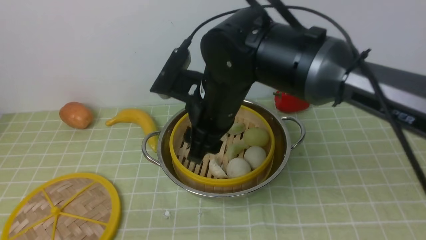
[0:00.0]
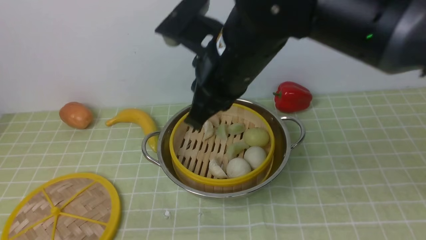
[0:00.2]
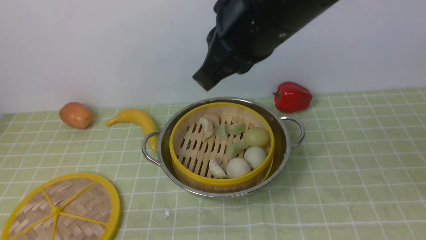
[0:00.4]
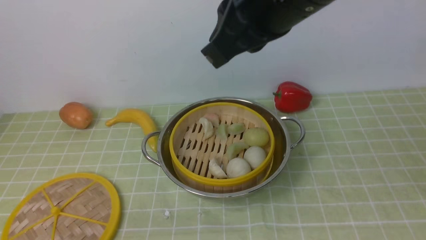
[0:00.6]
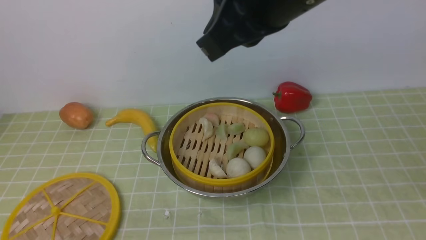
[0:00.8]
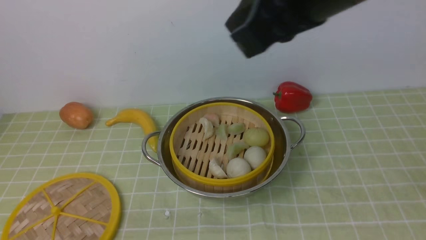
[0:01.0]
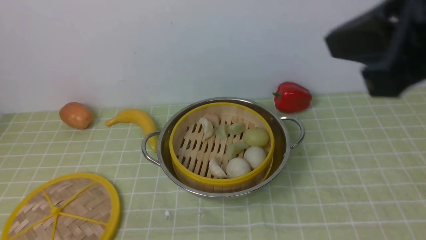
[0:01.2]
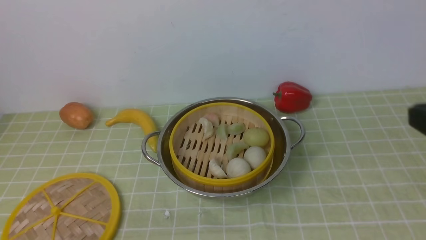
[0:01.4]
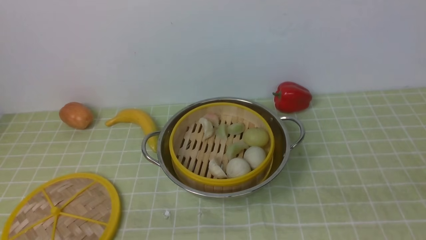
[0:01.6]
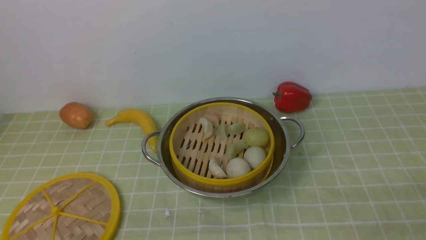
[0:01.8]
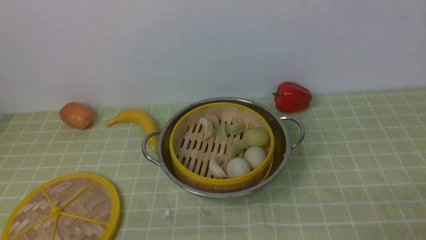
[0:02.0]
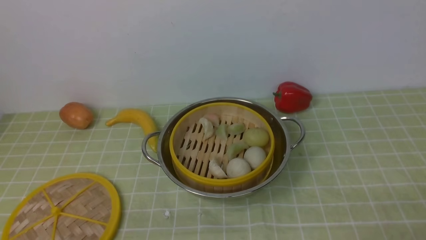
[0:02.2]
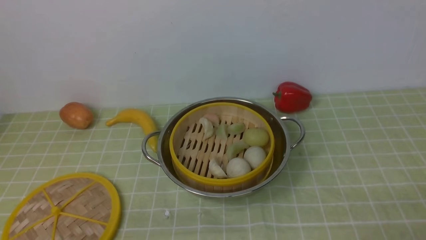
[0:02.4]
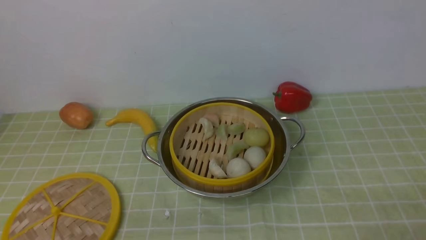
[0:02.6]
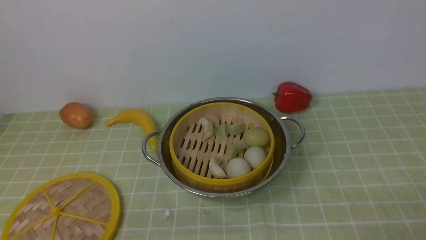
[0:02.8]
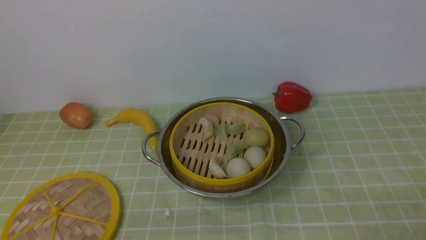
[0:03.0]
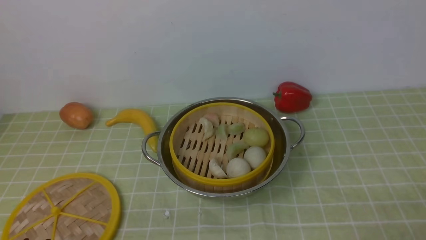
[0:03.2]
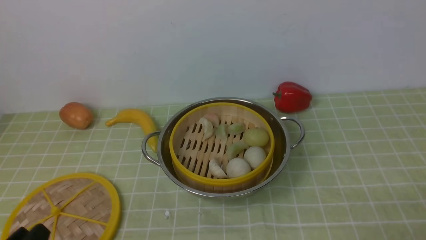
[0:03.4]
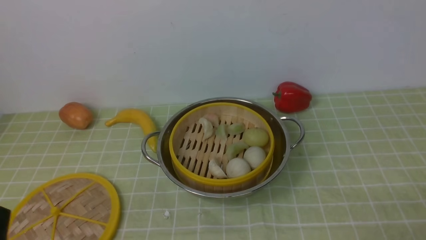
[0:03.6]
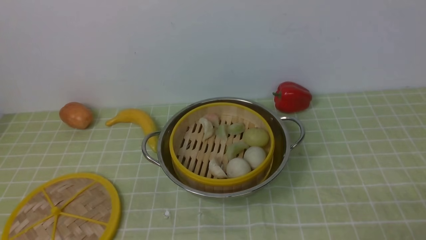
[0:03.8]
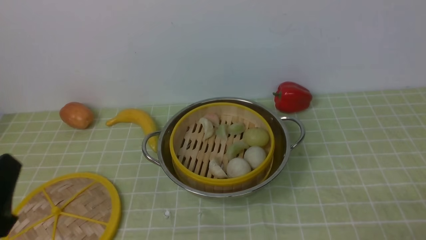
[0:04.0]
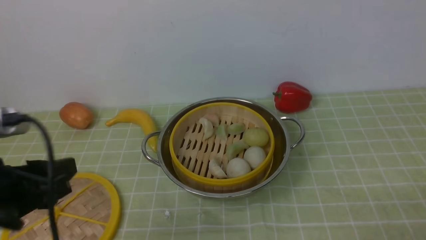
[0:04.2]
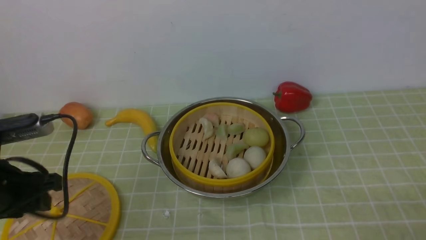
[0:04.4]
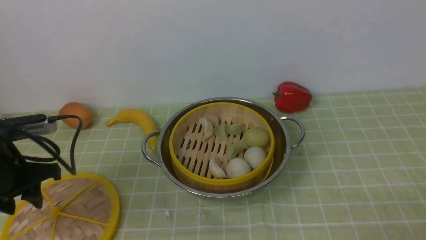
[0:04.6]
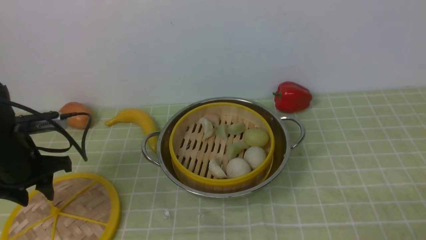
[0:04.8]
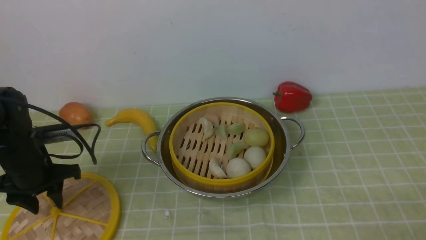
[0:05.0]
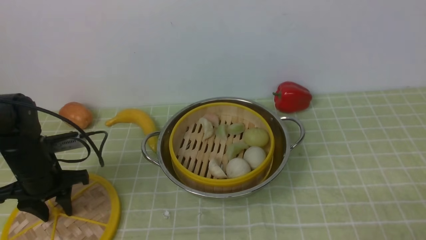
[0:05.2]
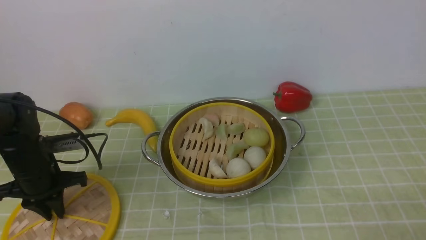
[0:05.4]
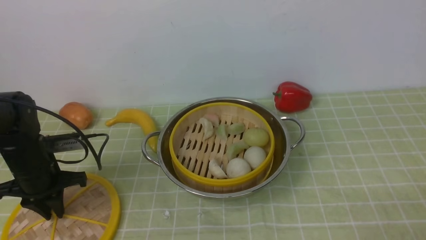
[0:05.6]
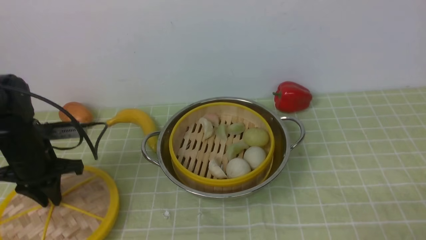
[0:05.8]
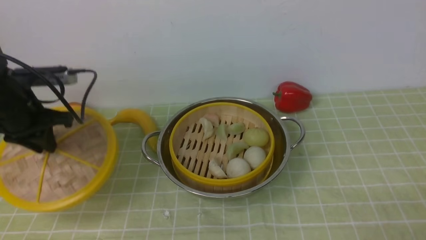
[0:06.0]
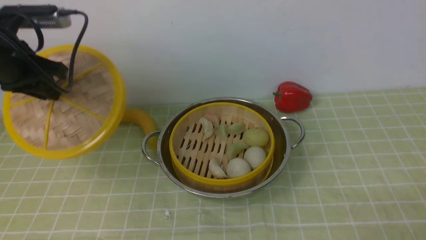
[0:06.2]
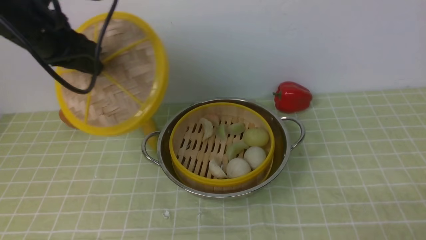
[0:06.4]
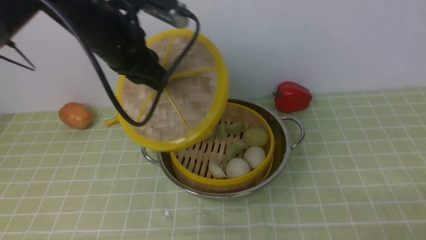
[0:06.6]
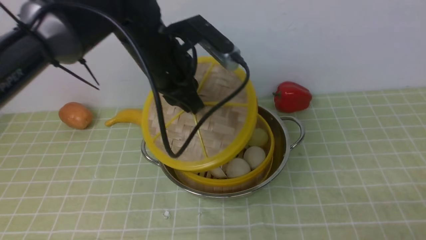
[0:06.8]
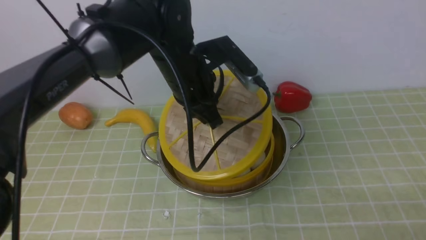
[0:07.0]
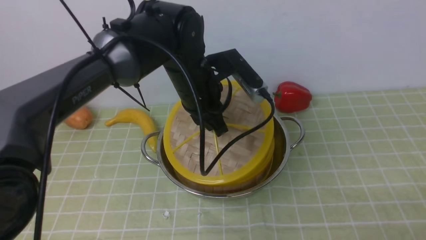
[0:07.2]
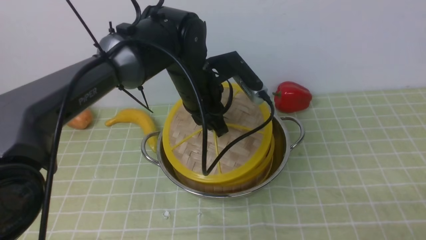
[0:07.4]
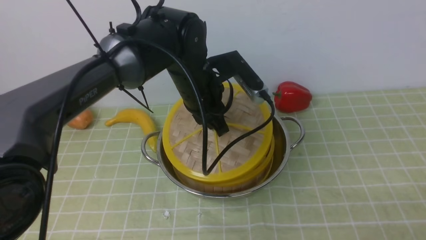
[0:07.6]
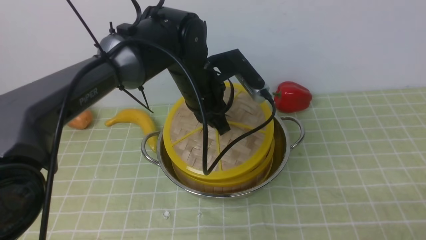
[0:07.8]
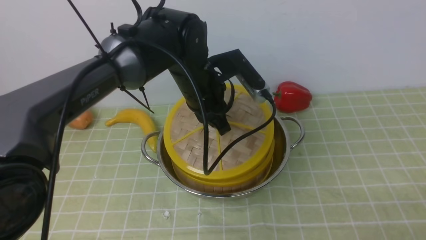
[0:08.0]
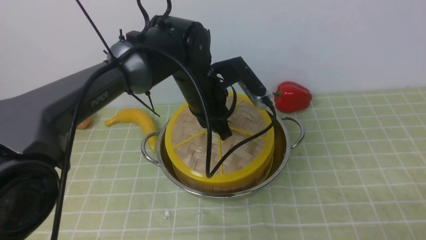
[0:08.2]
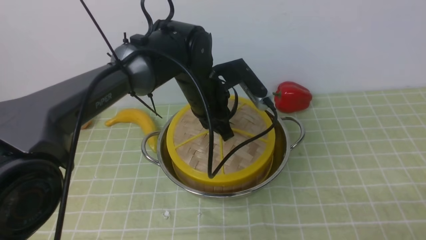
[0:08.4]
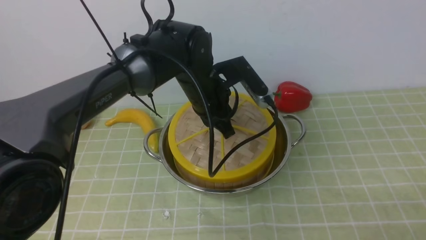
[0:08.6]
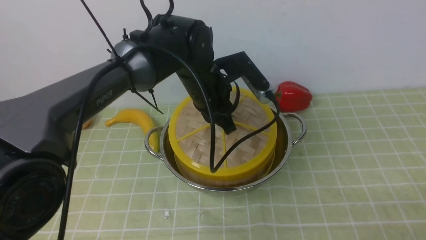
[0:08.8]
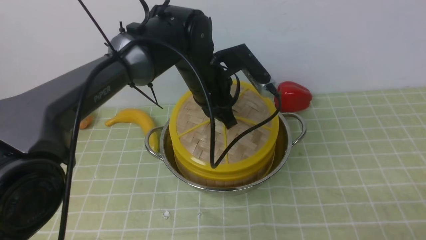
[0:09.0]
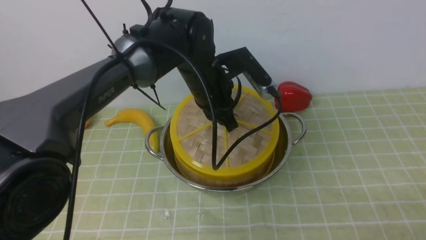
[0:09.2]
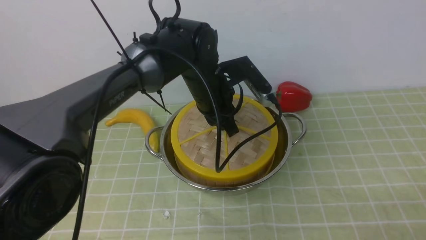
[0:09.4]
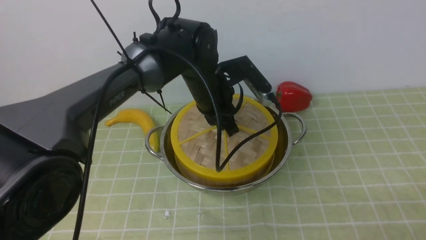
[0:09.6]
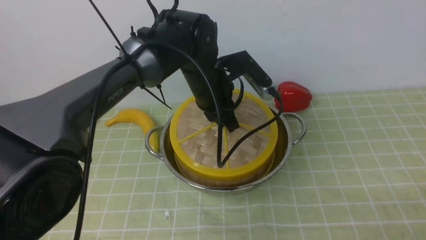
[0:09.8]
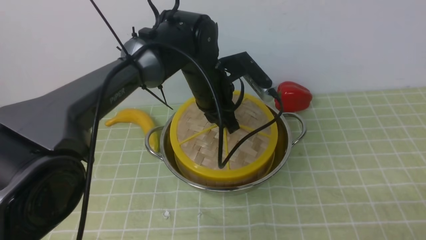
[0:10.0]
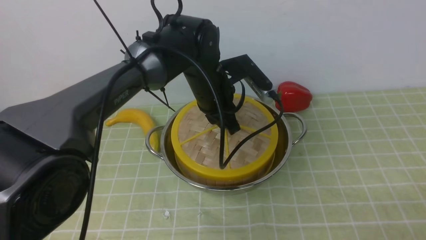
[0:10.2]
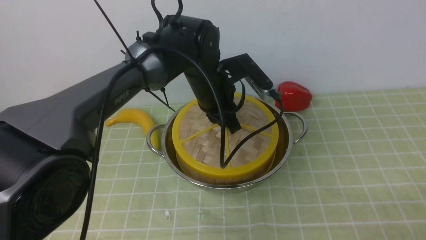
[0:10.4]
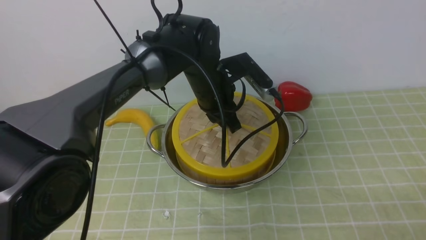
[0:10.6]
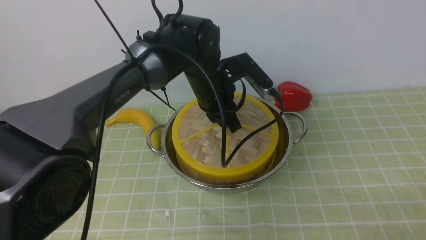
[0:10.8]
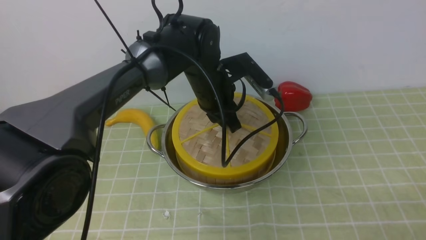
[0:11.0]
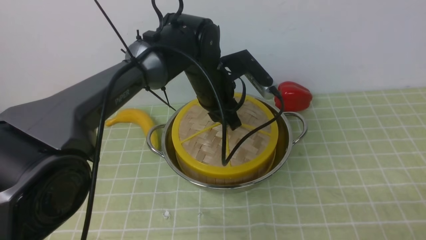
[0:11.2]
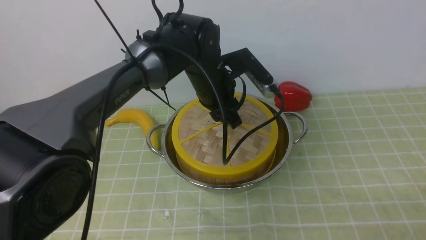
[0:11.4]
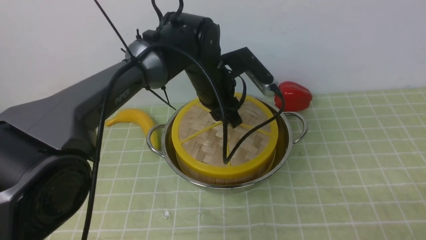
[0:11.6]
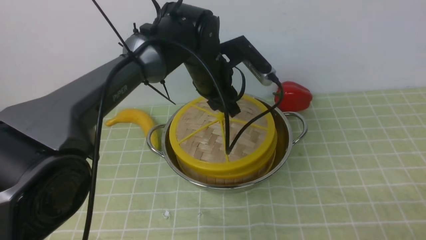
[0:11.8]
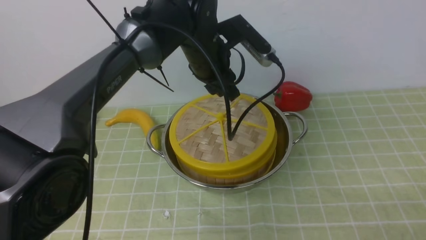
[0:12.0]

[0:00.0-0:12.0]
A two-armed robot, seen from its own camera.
Task of the whole recording: place the steamer in the pot on the green tablecloth, and put the lid on the steamer.
Step, 0:00.0 to 0:06.2: use the left arm to lift the lid of the steamer.
0:00.0 to 0:01.6: The right gripper goes approximately 35 cm to the right and backward, and closes.
0:03.0 to 0:04.4: The left gripper is displaced forward and upward by some 20 cm.
0:04.4 to 0:06.0: The left gripper heads forward, covering roughly 15 cm, and closes up.
0:06.0 to 0:07.6: The left gripper travels to the right by some 25 cm.
0:07.6 to 0:10.4: The grippers stay close to where they were, moving slightly.
0:10.4 to 0:12.0: The left gripper opens its fingers.

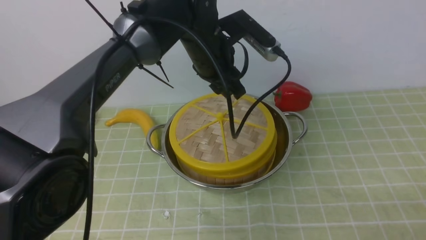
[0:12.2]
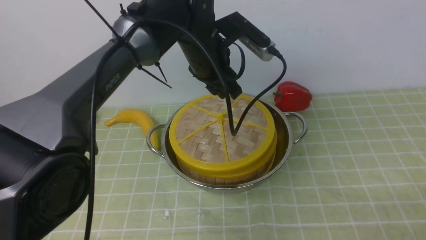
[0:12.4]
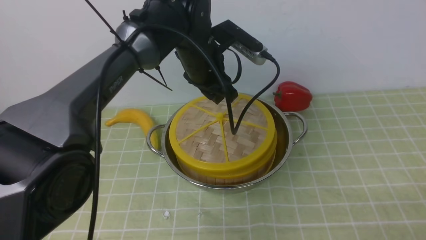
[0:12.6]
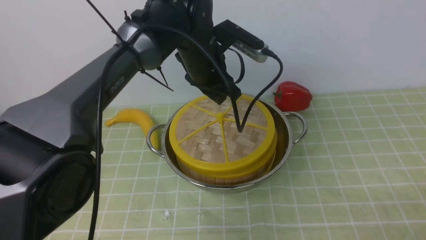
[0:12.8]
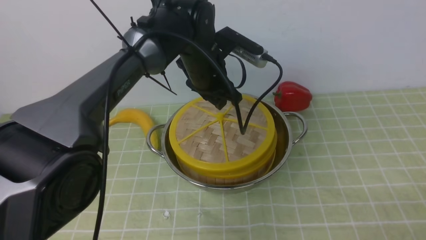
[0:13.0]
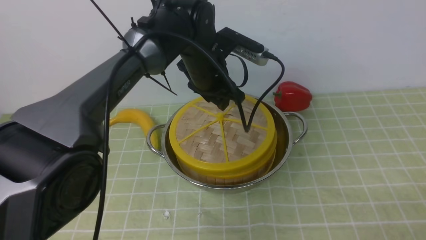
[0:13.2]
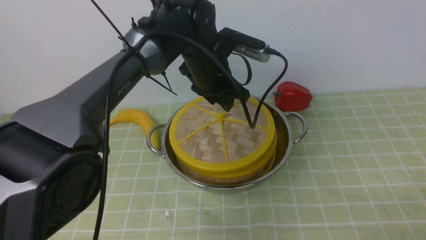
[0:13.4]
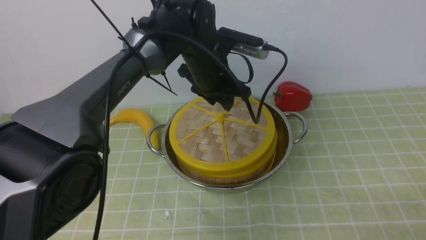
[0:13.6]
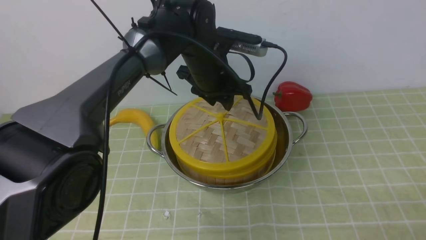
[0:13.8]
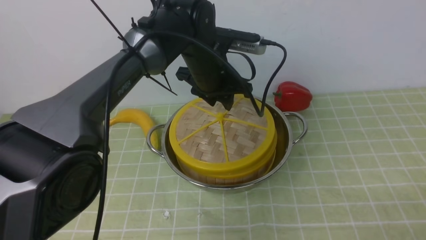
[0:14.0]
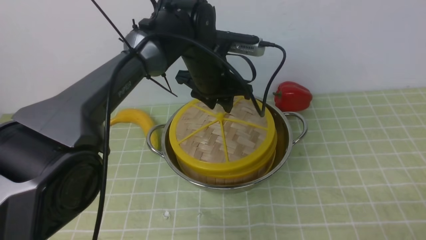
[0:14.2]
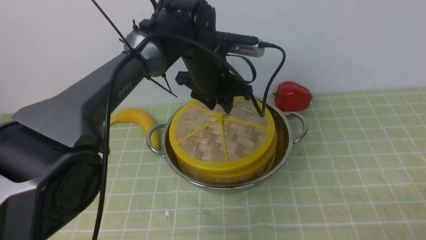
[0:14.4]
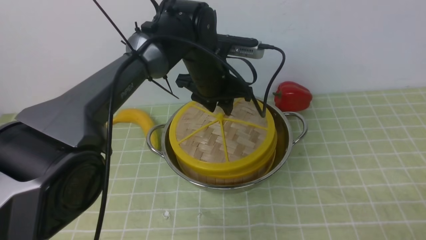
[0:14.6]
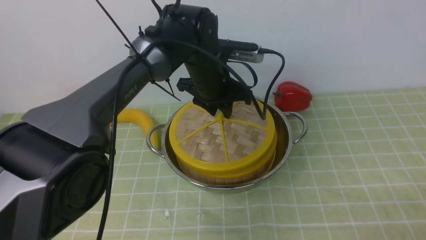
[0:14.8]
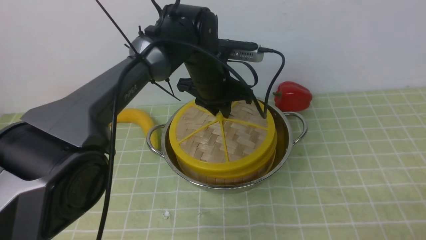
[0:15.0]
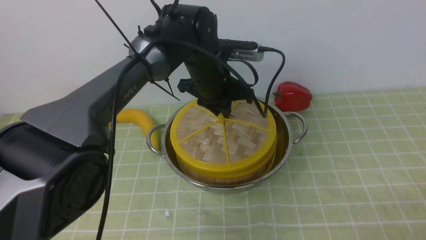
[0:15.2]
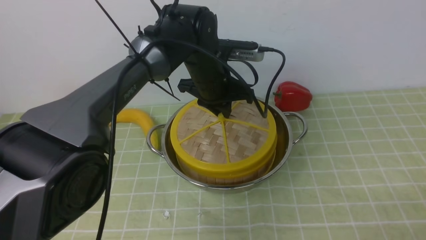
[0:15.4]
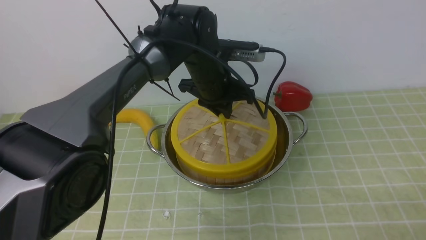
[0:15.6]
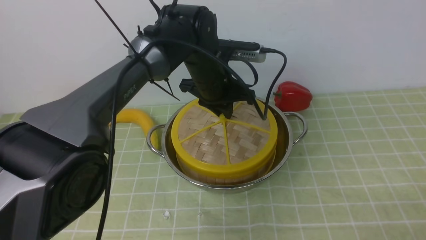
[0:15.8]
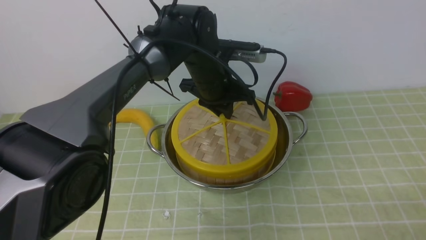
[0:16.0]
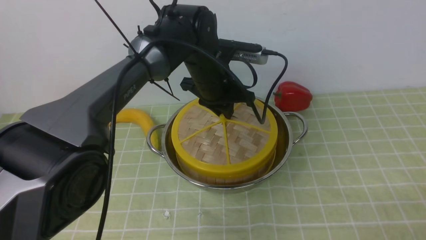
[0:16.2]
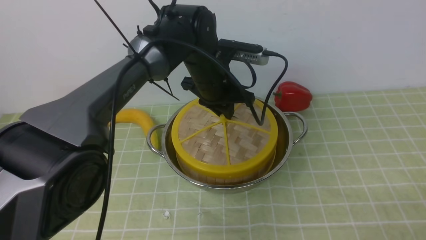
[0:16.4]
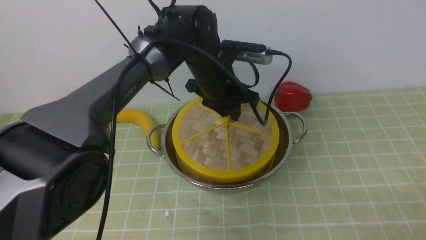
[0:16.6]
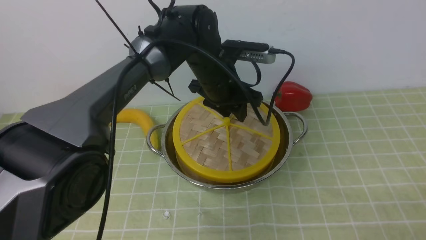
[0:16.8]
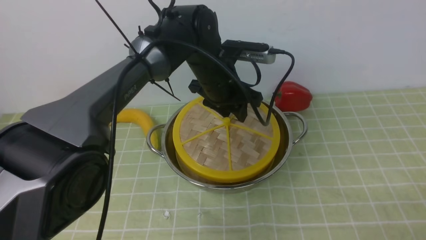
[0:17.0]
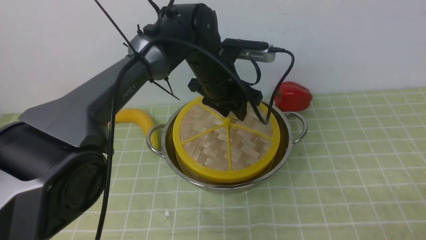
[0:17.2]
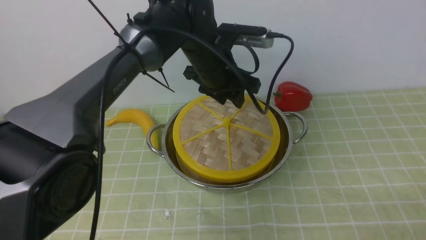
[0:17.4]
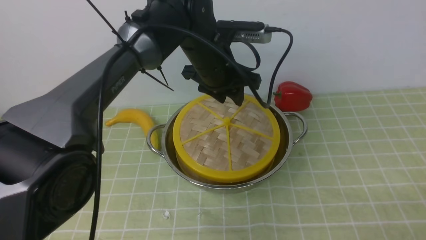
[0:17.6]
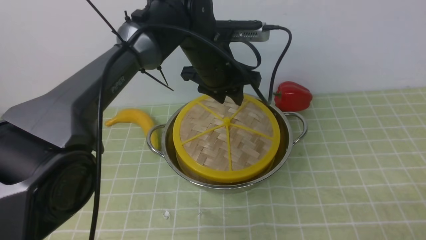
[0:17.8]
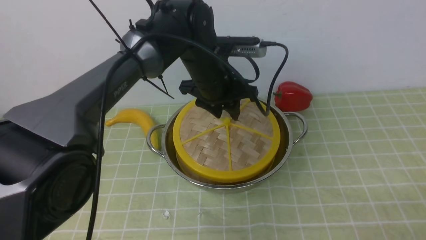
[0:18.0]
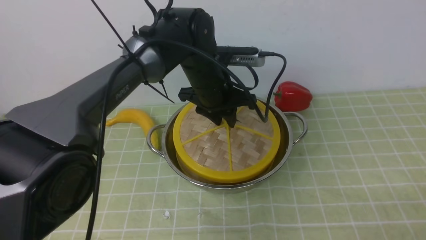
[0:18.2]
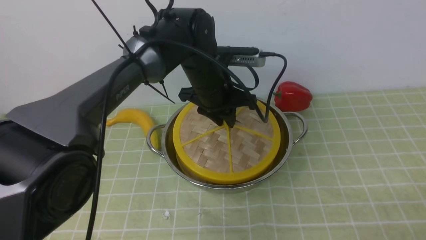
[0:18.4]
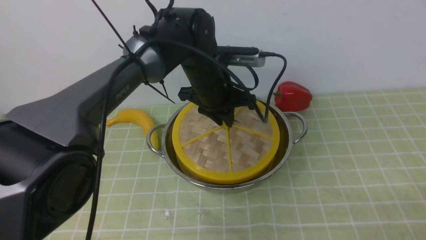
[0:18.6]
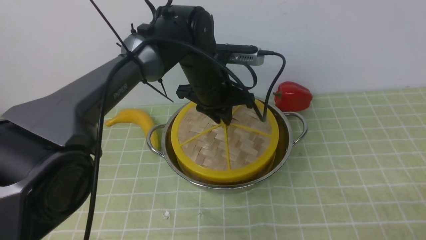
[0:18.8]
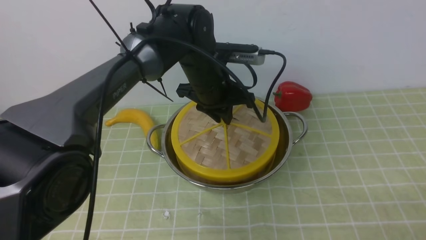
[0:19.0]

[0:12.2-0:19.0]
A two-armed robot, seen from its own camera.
Task of the whole recording: place the steamer in the pot on the green tablecloth, and put the lid on the steamer.
0:13.6 to 0:16.2: The grippers stay close to where they were, moving slightly.
0:16.2 to 0:17.6: The left gripper opens its fingers.
0:17.6 to 0:19.0: The left gripper closes.
